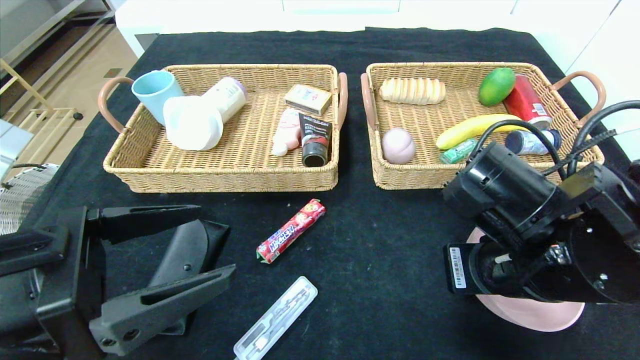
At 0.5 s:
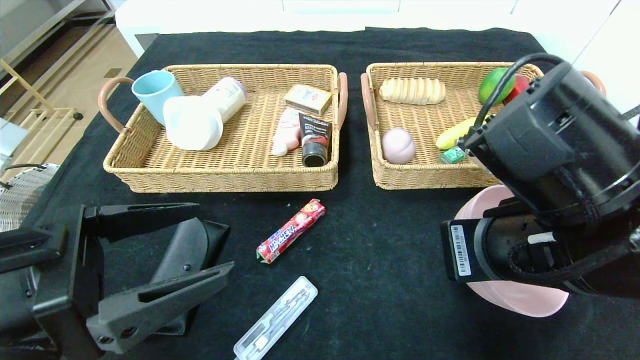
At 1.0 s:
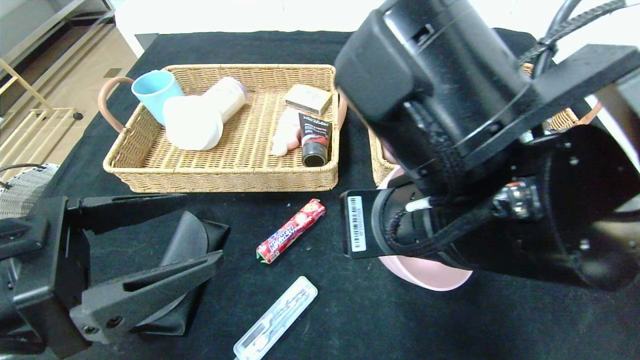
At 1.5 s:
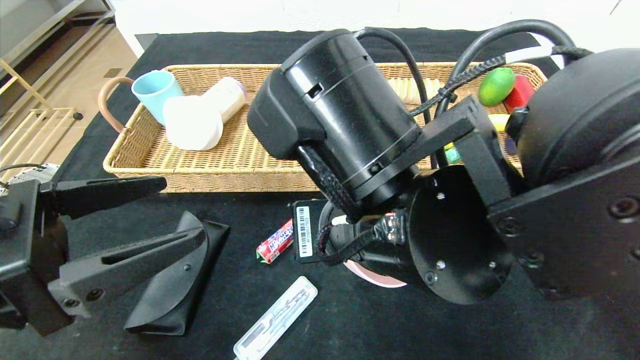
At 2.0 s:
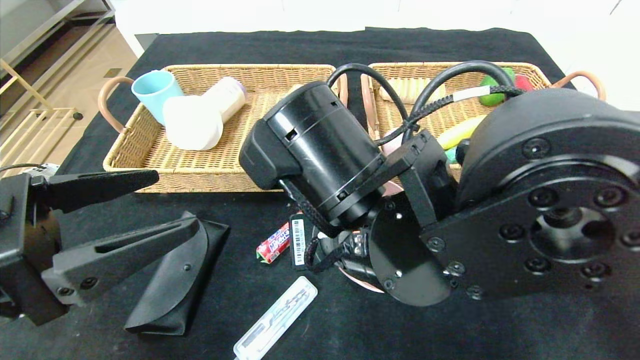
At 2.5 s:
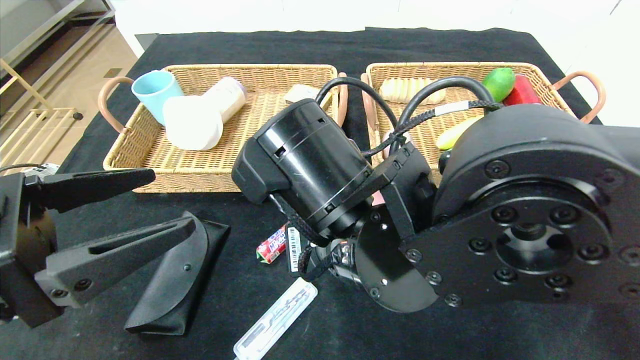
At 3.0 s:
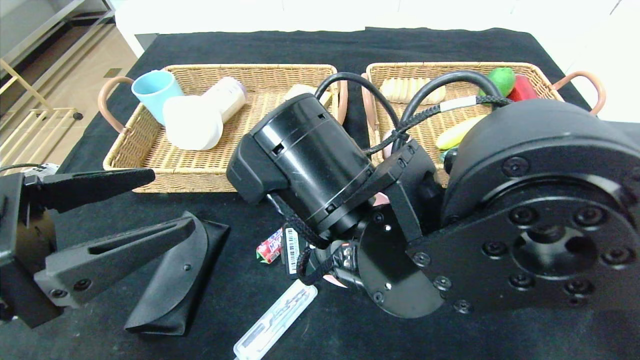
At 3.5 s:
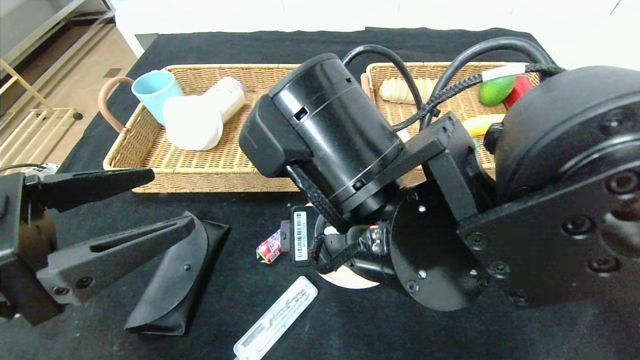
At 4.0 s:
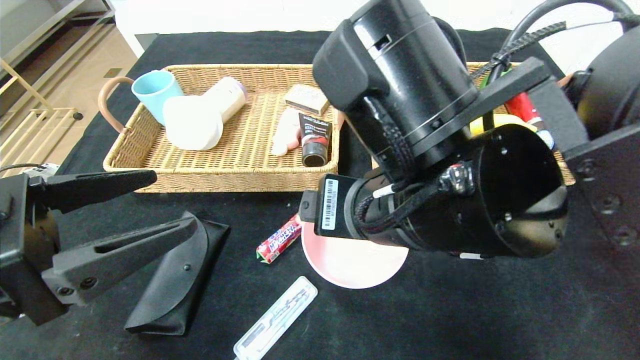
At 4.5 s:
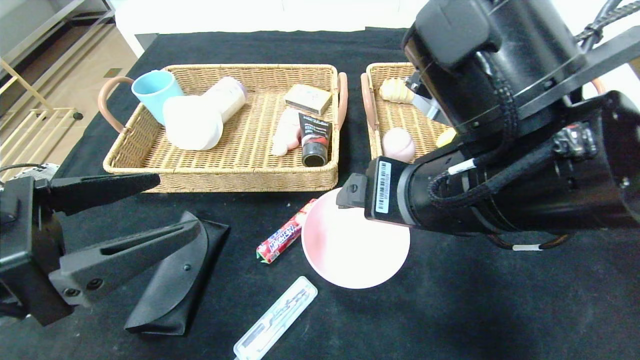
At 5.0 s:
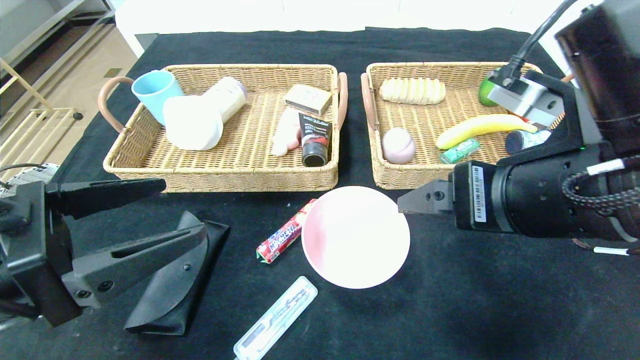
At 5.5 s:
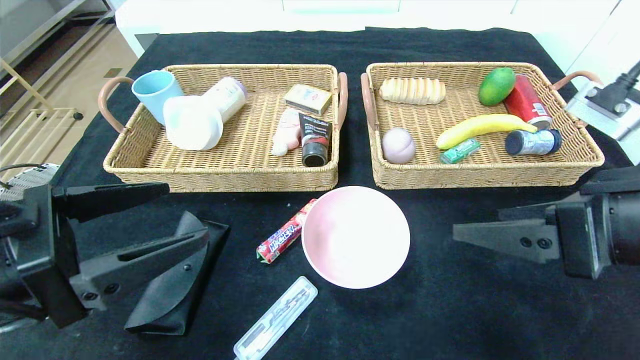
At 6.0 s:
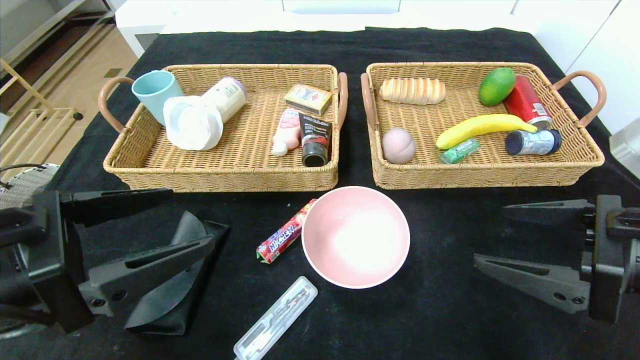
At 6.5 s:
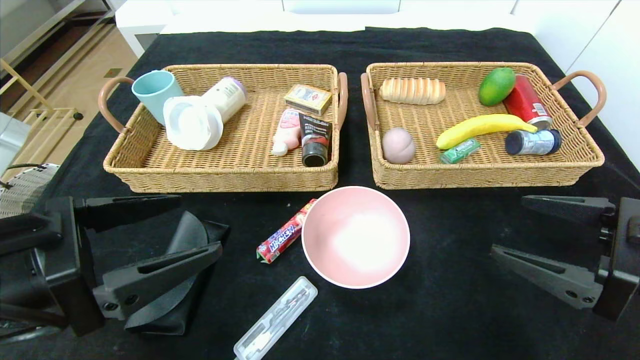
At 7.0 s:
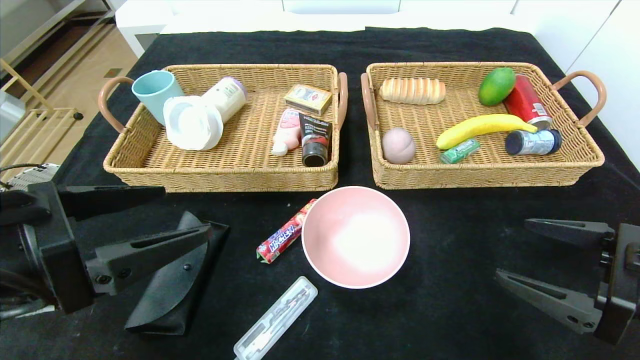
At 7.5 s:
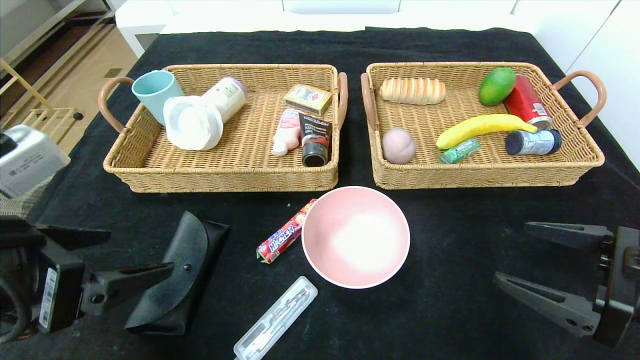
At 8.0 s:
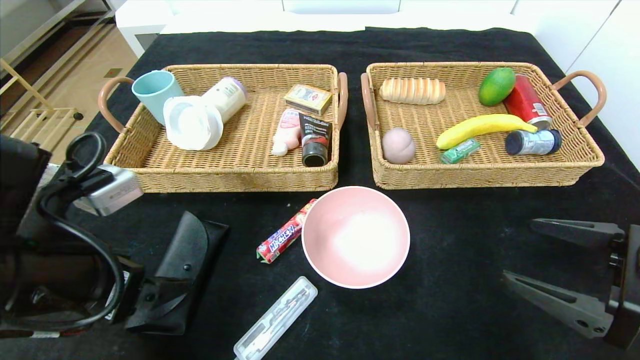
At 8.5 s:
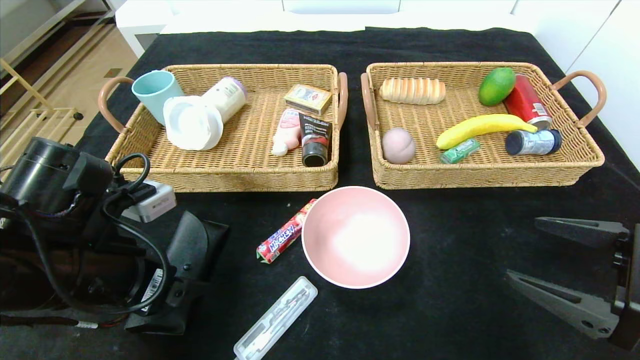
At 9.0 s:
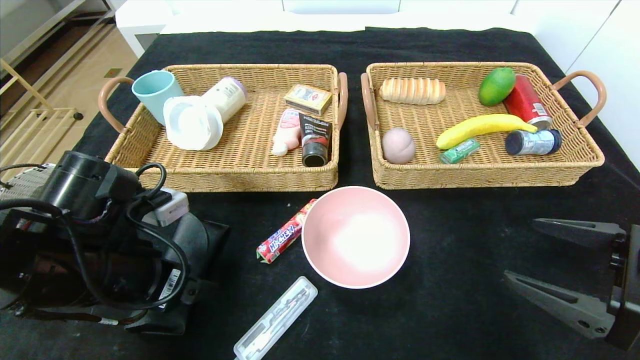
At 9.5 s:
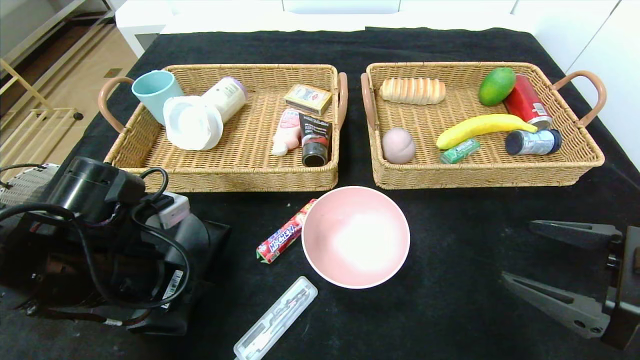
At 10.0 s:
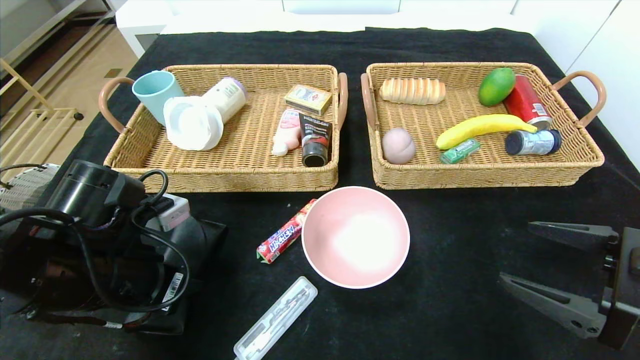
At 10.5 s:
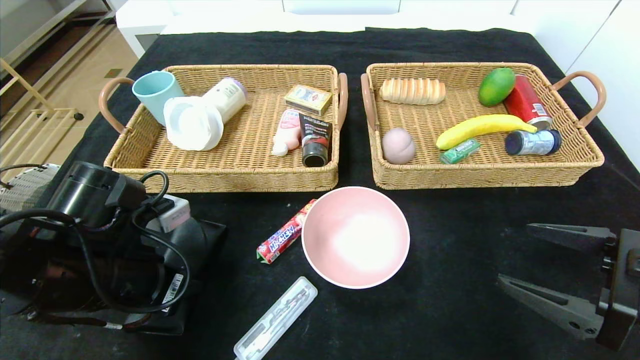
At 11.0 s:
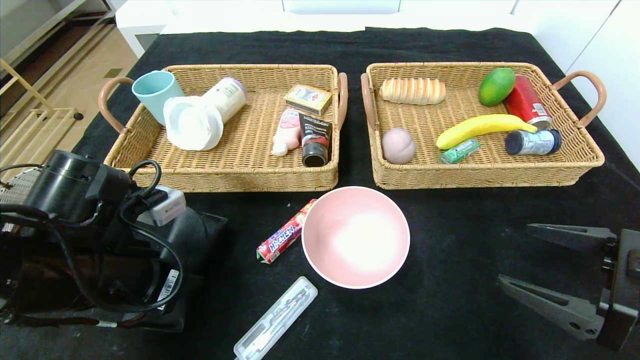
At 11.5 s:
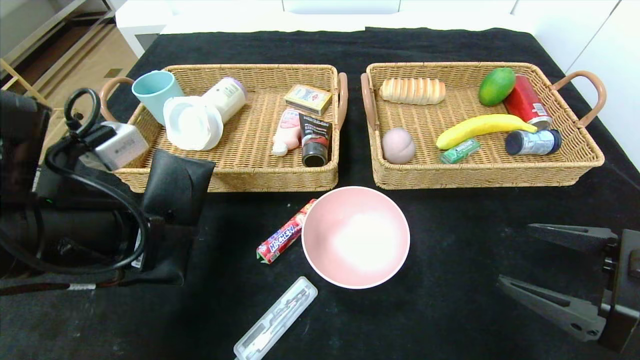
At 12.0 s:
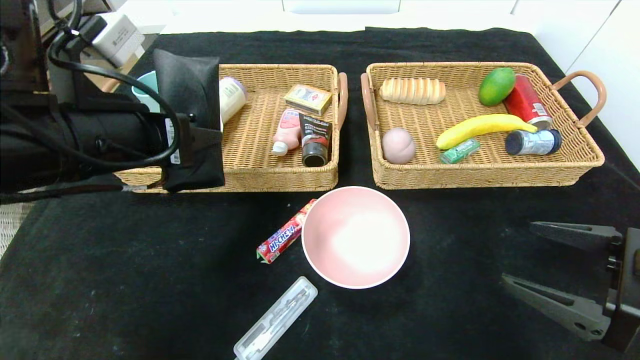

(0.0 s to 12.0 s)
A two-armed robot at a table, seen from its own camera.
Step, 0.0 s - 2.5 s: Place the pink bowl in the center of the table.
0.0 s - 2.0 s: The right gripper travels to the left by approximately 15 cm.
2.0 s - 4.0 s: The right gripper moves some 5 cm, and opens up.
4.0 s - 6.0 s: The right gripper moves to the right, roughly 20 cm.
6.0 s - 8.0 s: The right gripper changes place by some 5 cm.
8.0 s - 10.0 s: The left gripper heads downward, covering approximately 5 cm, and closes.
10.0 s - 12.0 s: The left gripper is displaced upward by some 15 cm.

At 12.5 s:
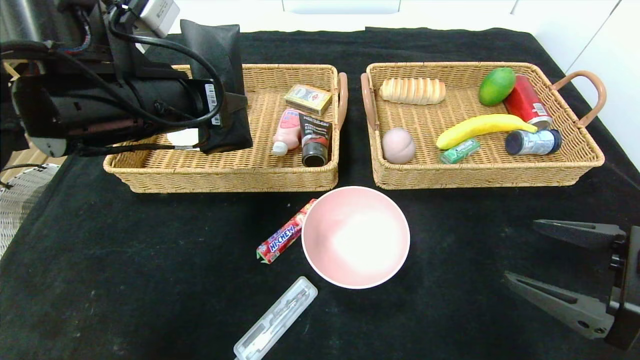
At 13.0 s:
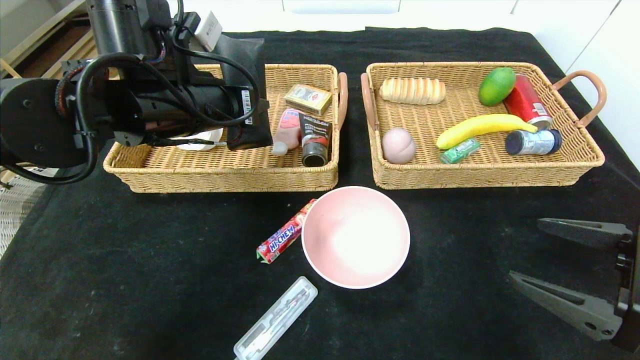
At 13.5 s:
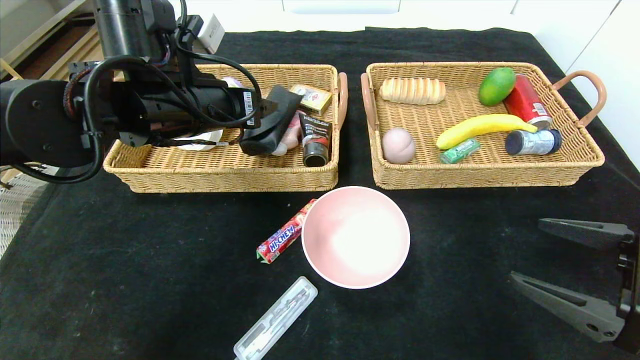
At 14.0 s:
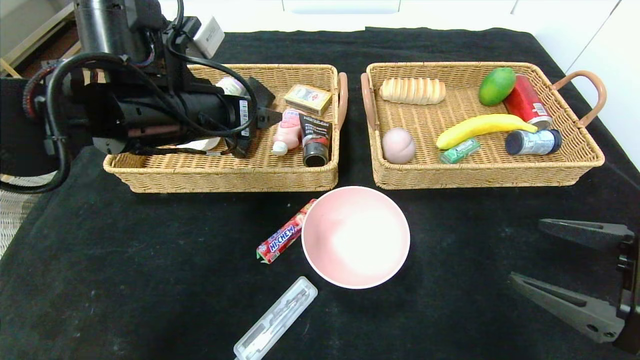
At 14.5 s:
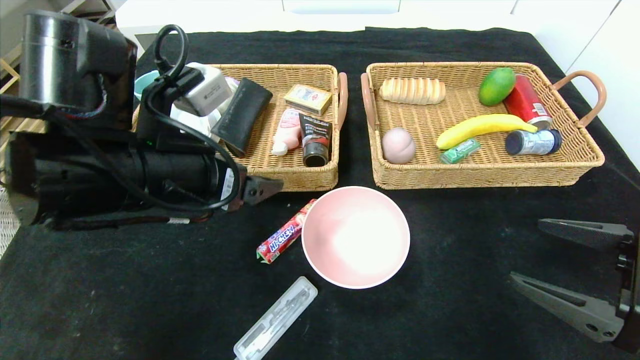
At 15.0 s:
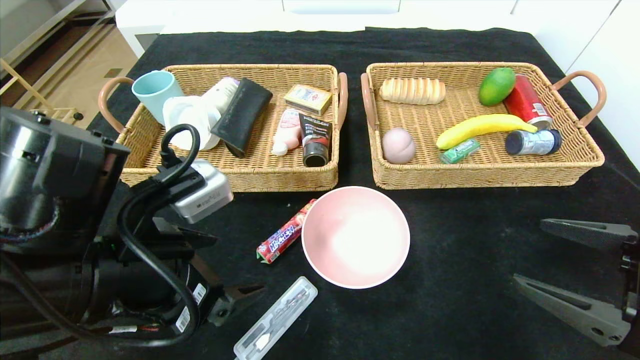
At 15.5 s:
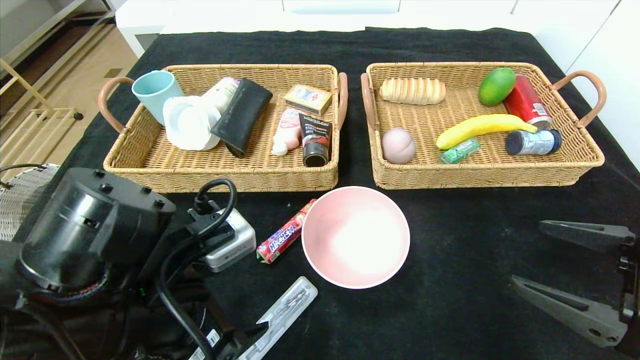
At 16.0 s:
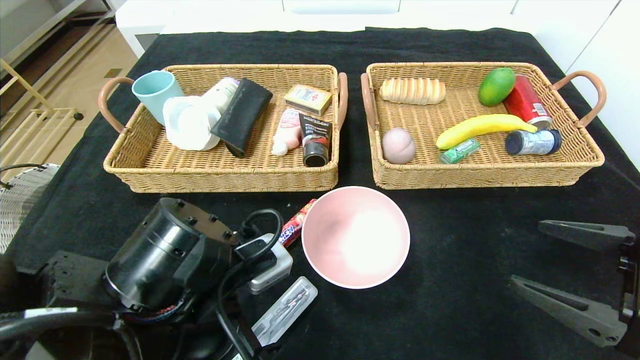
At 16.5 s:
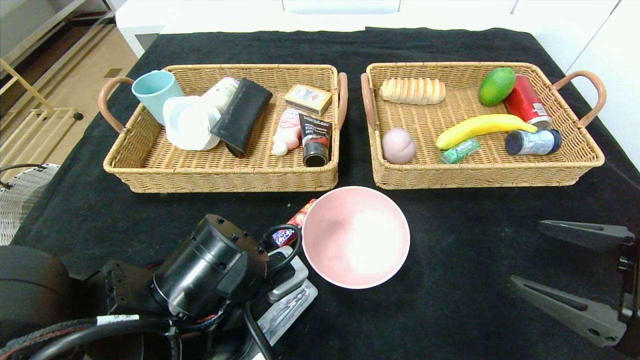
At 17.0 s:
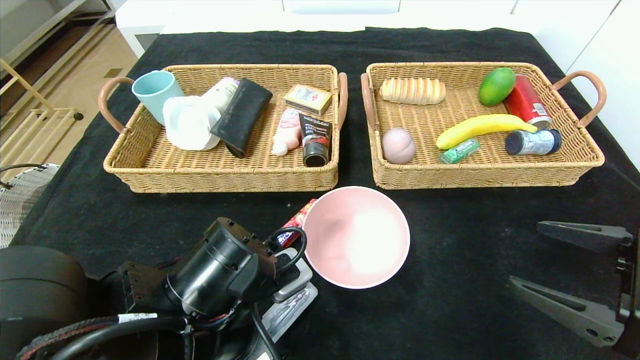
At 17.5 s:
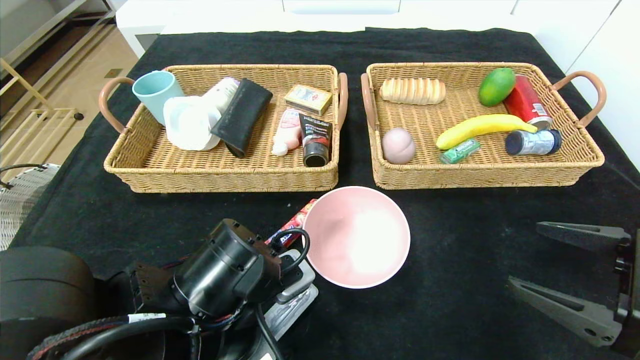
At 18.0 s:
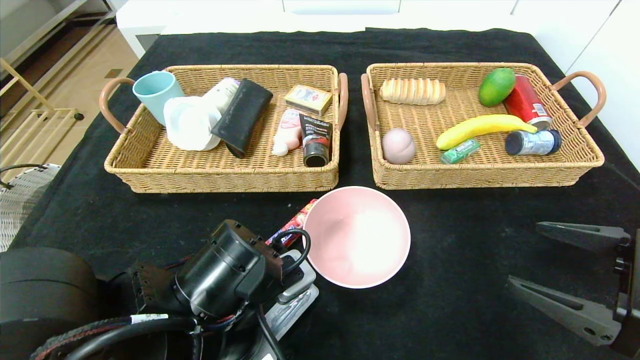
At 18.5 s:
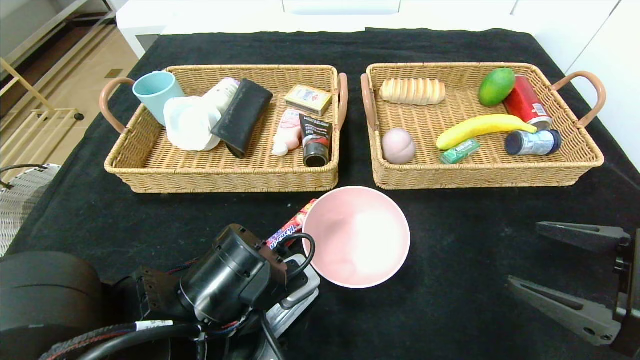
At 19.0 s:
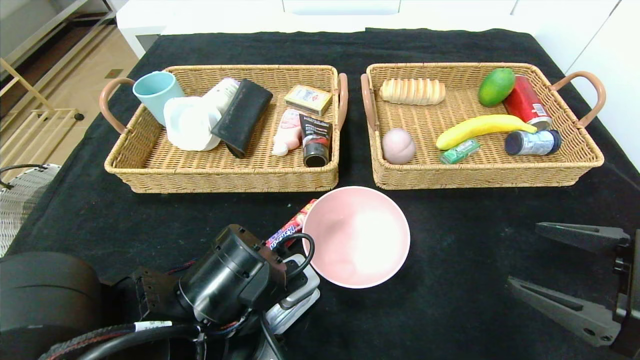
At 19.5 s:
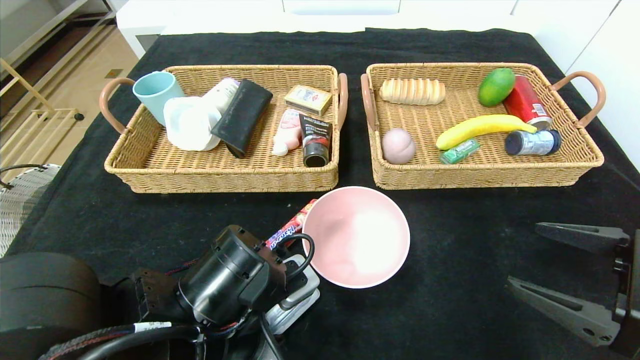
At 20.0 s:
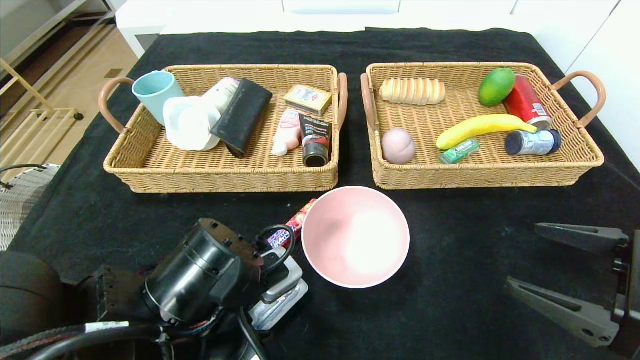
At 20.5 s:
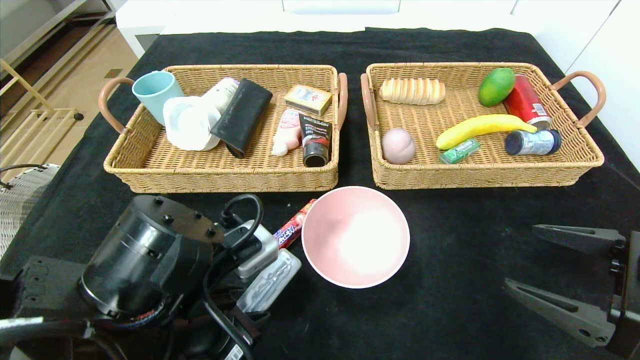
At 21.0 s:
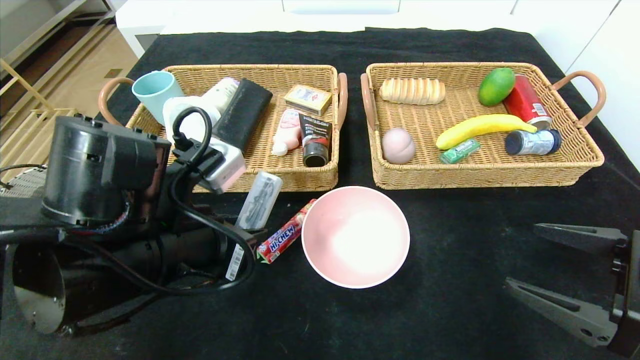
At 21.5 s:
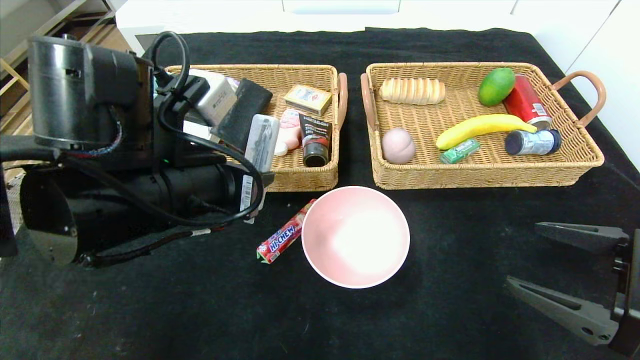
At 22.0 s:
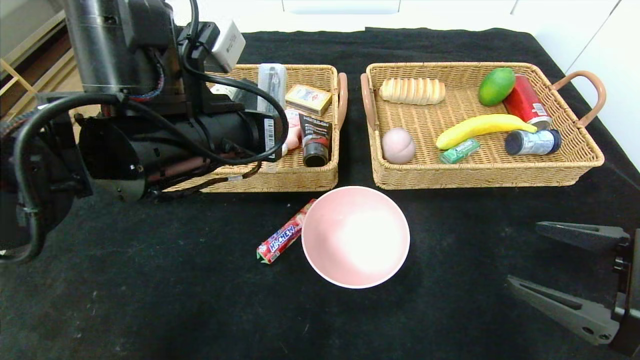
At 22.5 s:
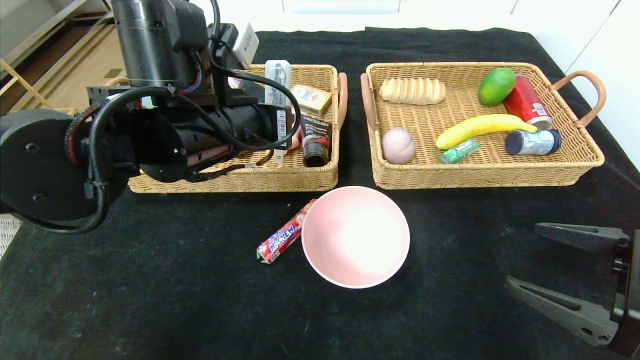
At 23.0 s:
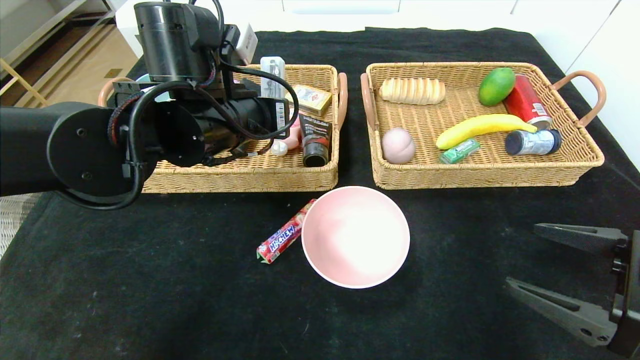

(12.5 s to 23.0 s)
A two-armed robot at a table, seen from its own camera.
12.5 s - 14.5 s: The left gripper shifts approximately 5 cm backward, and opens up.
14.5 s - 16.5 s: The left gripper heads downward and backward, covering about 10 cm.
16.5 s - 19.0 s: The left gripper closes its fingers.
19.0 s - 21.0 s: The left gripper is displaced upward by about 10 cm.
21.0 s - 23.0 s: The left gripper travels forward and upward by some 15 cm.
